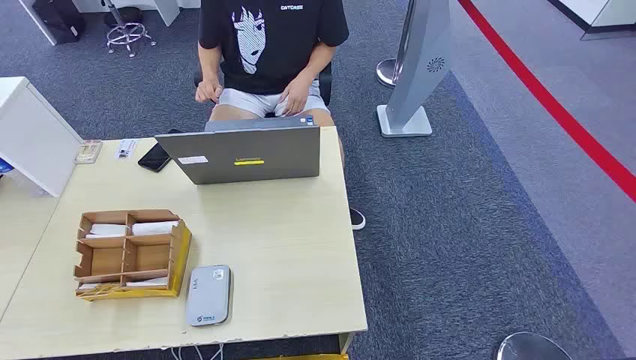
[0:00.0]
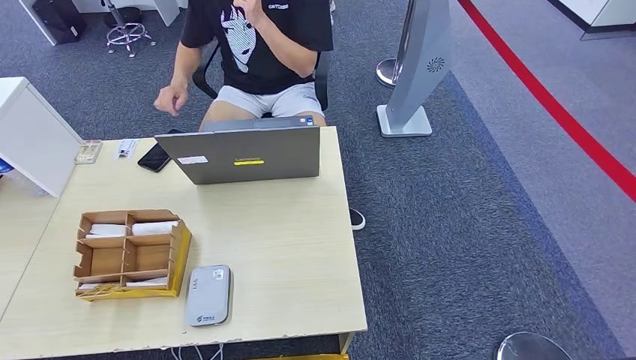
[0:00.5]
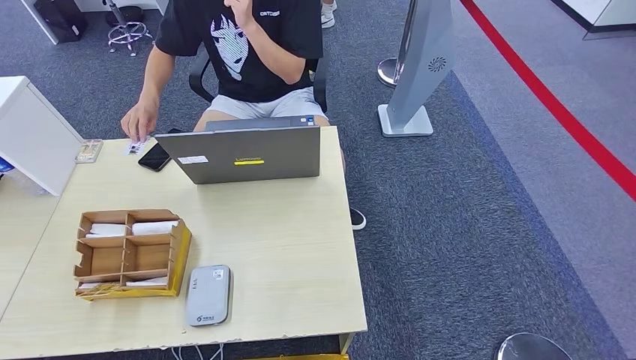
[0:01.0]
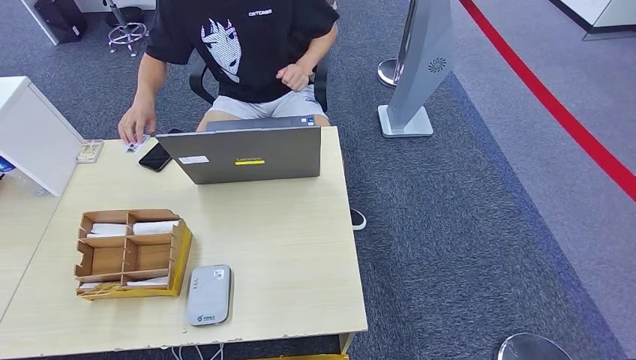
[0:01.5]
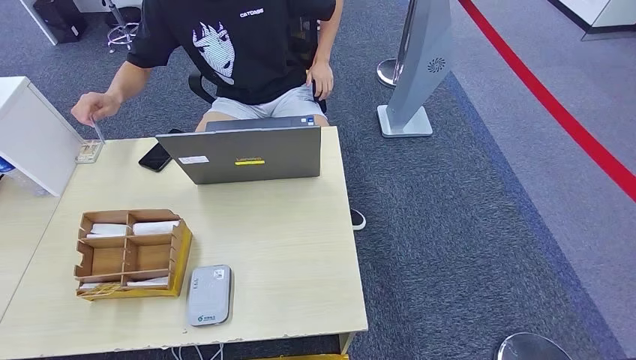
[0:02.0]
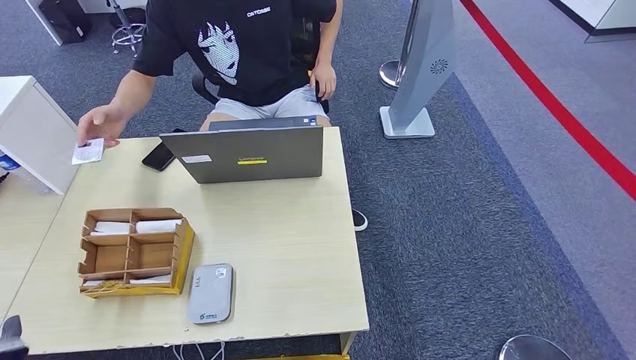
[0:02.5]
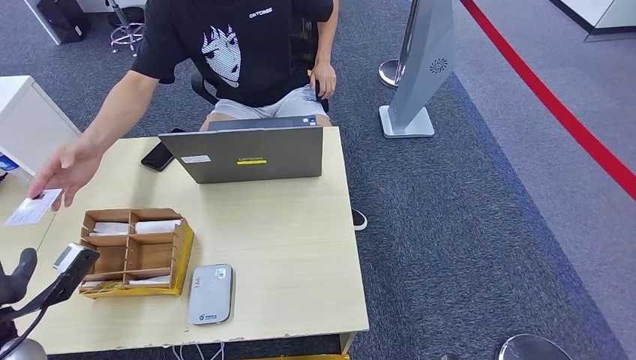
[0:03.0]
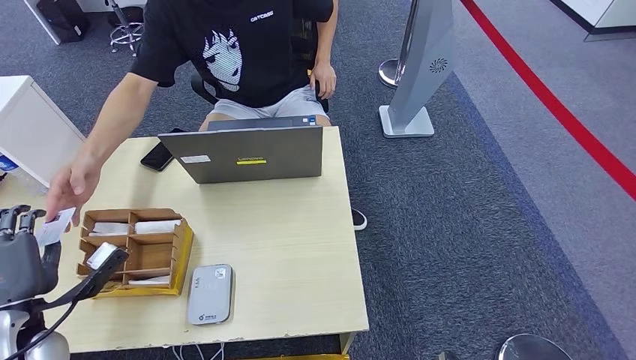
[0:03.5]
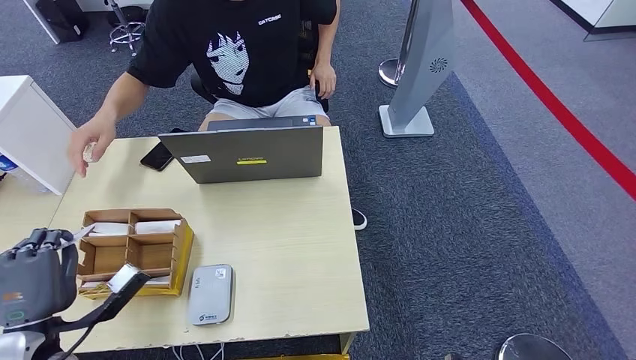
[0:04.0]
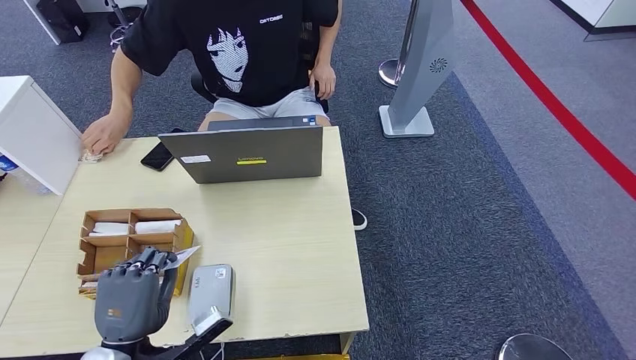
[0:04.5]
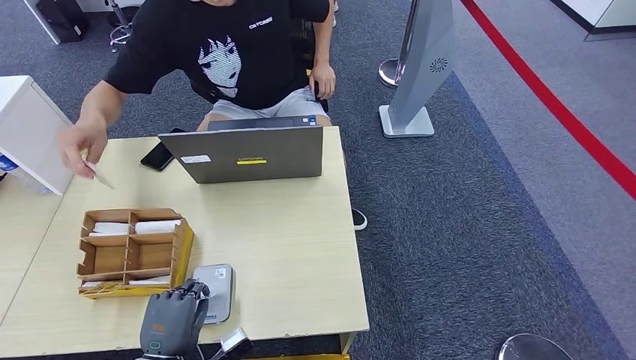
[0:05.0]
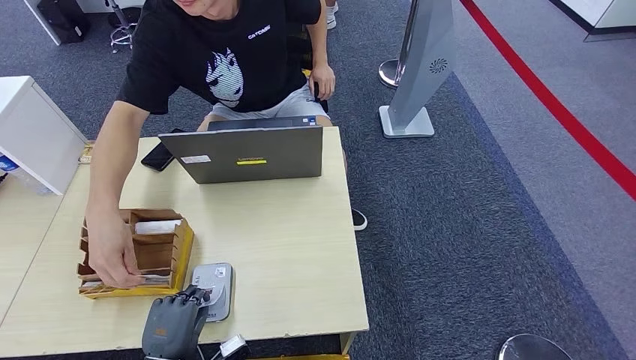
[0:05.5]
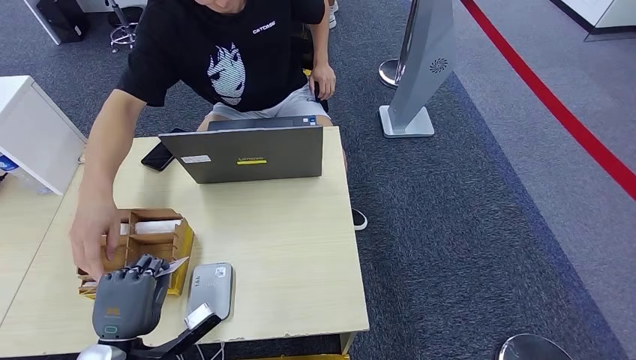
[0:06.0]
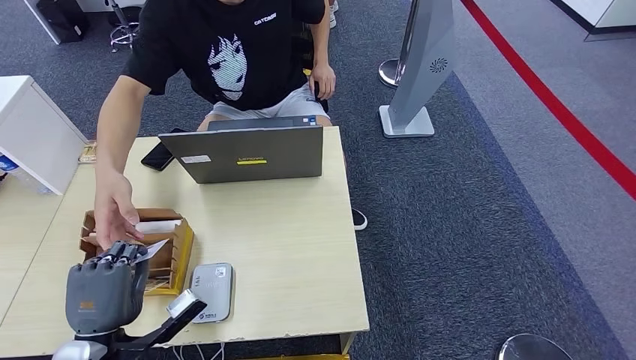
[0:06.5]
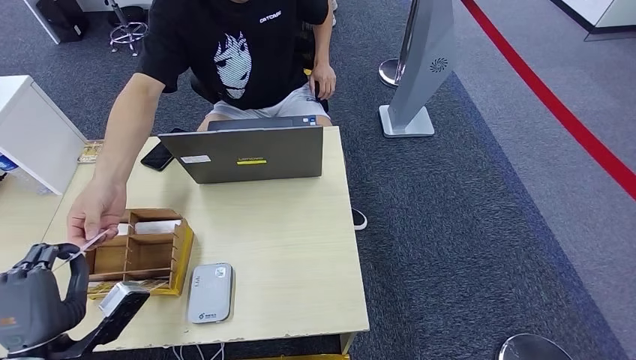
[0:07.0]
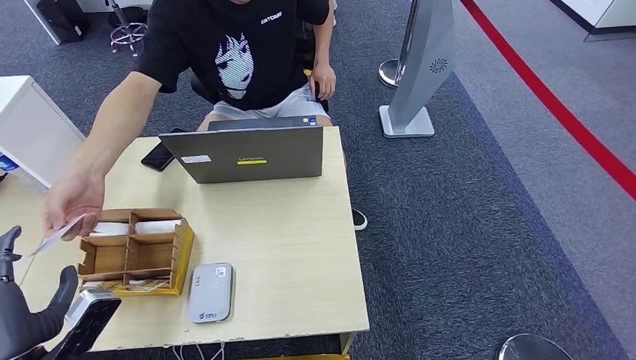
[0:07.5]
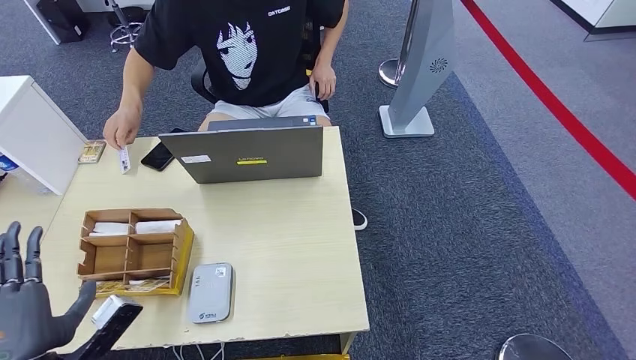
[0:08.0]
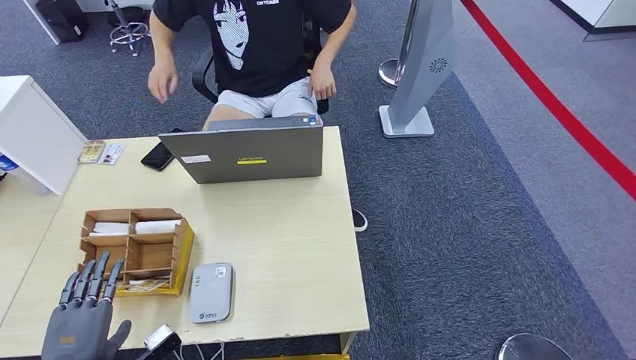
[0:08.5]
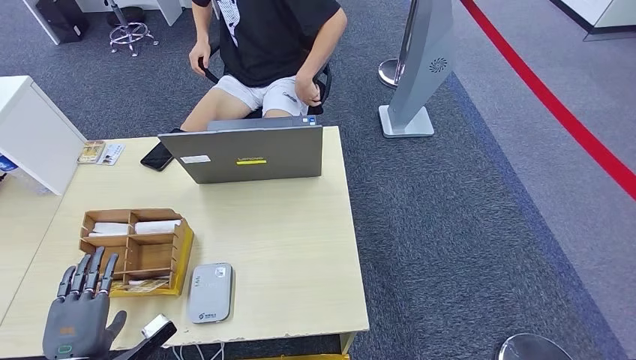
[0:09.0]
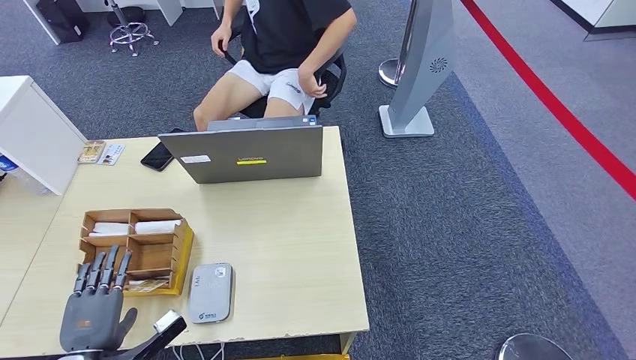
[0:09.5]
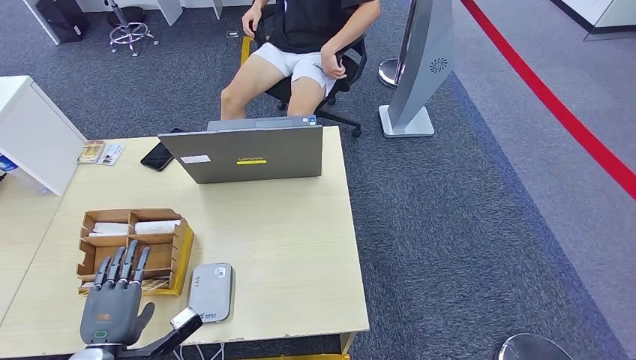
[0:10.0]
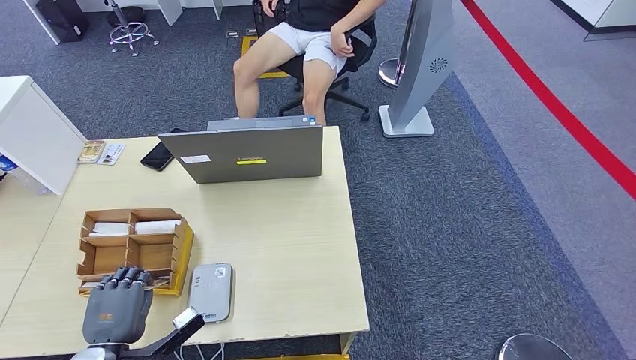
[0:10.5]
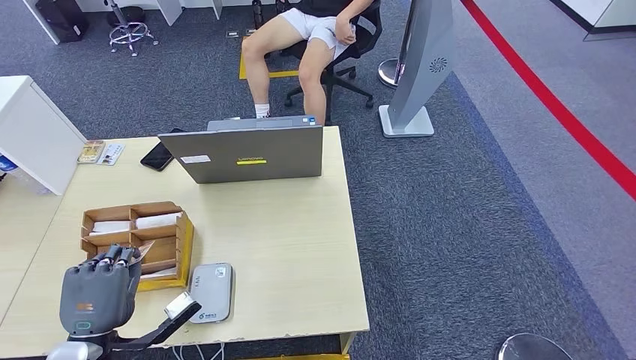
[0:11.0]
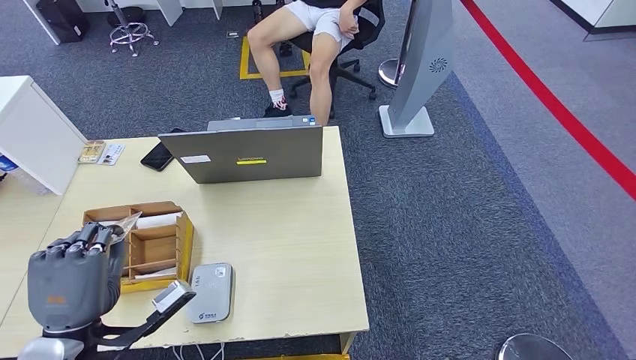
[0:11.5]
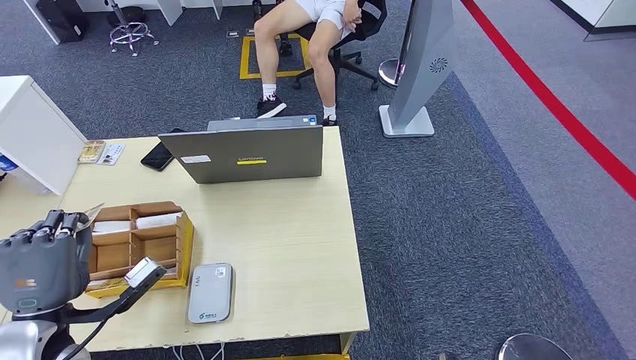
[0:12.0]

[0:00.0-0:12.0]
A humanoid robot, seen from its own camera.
Step, 0:00.0 to 0:04.0: Take the ID card from the person's hand.
Step, 0:04.5 to 0:06.5: Place the ID card on the card reader.
Step, 0:07.0 to 0:09.5: Hand the ID card to the person.
0:02.0 to 0:04.0: The left hand travels forward, to the right and upward by roughly 30 cm.
0:04.0 to 0:06.0: The left hand goes approximately 10 cm to the right and downward.
0:06.0 to 0:08.0: The left hand goes roughly 10 cm to the left and upward.
0:08.0 to 0:10.0: The left hand heads downward, covering roughly 10 cm.
0:10.0 to 0:12.0: The left hand shifts about 10 cm upward.

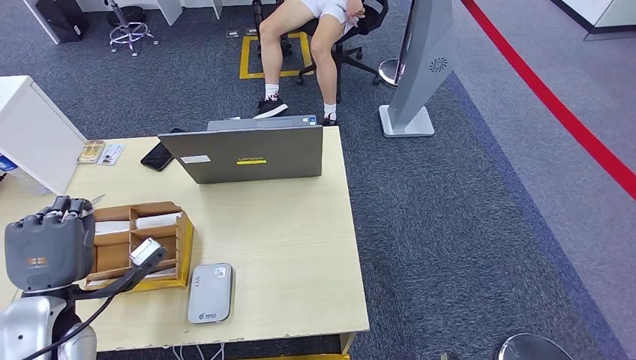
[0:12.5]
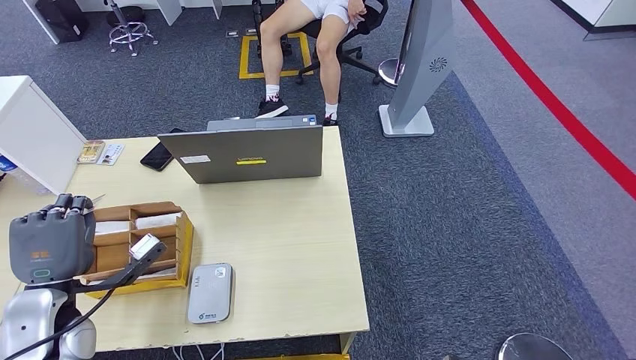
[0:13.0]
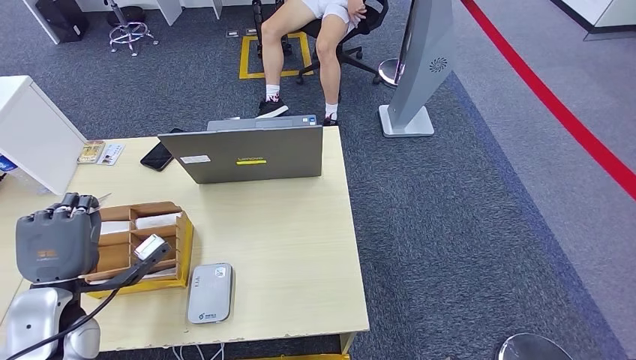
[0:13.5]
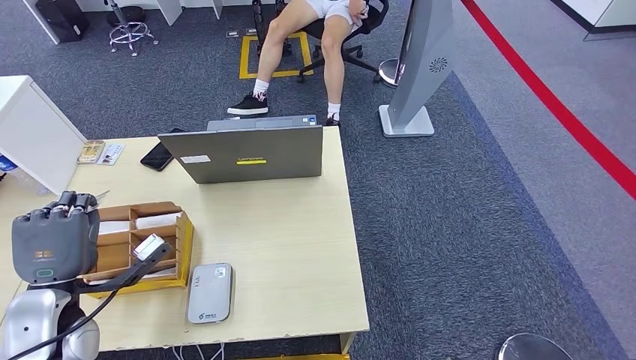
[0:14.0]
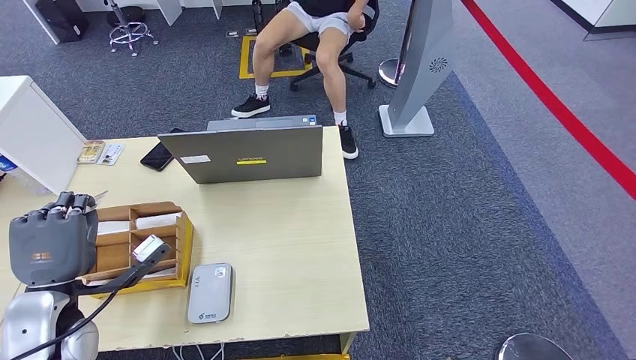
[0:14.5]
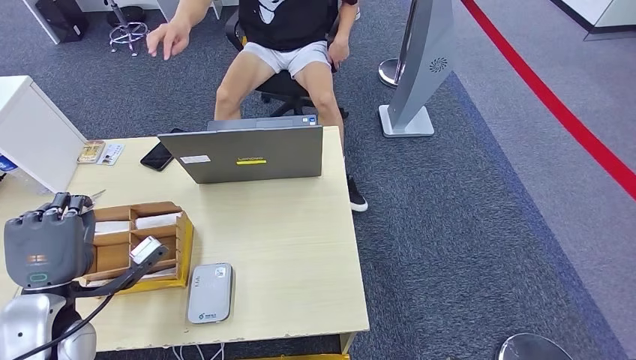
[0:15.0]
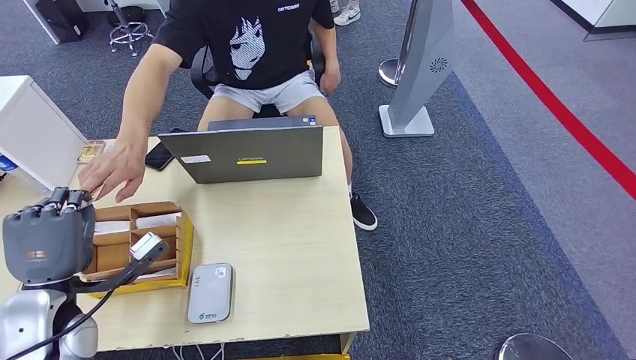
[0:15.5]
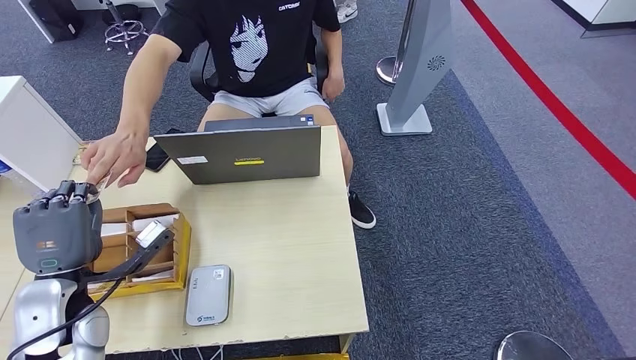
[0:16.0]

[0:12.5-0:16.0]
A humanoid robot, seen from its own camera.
Step, 0:12.5 to 0:16.0: Hand the room key to the person.
0:12.5 to 0:14.5: The hands move only a little.

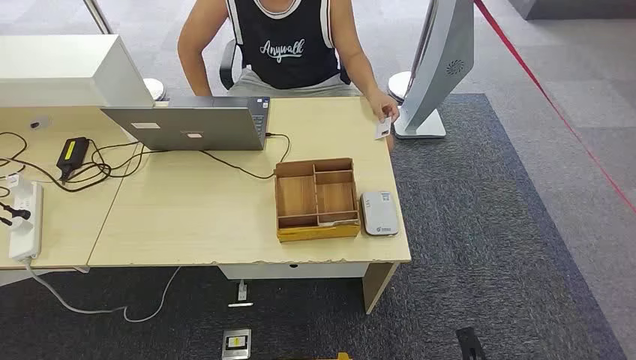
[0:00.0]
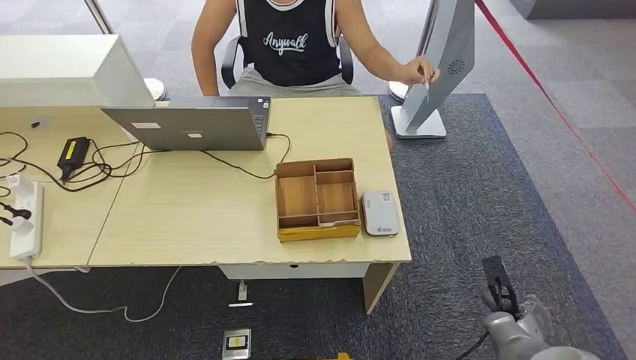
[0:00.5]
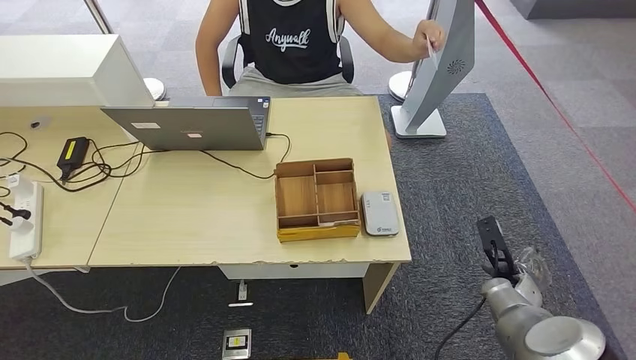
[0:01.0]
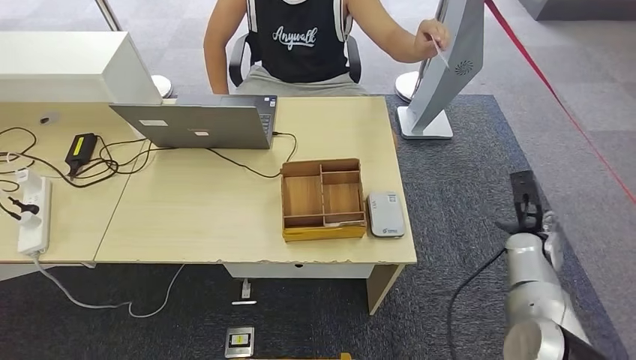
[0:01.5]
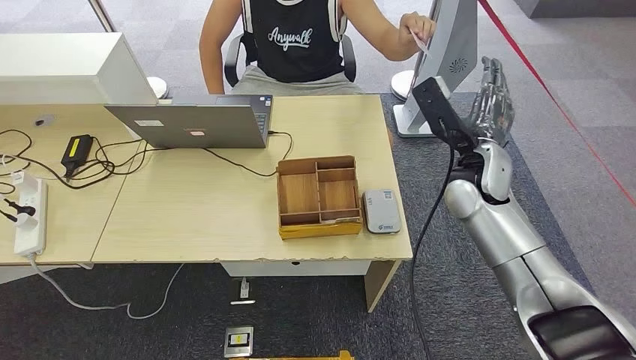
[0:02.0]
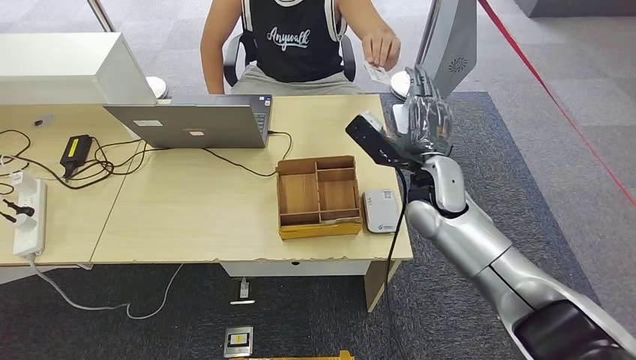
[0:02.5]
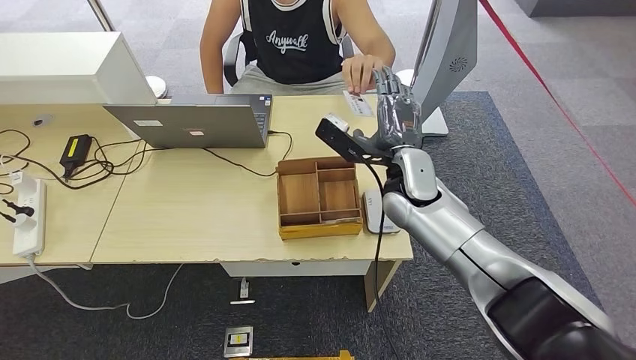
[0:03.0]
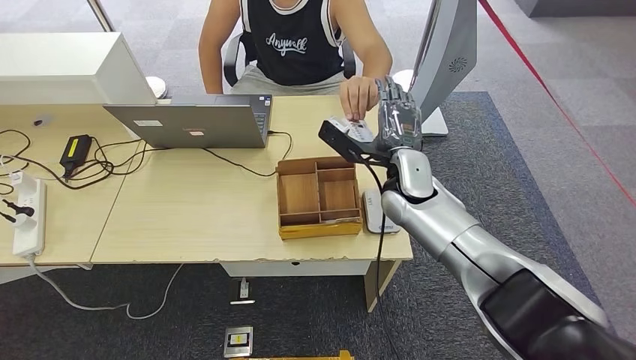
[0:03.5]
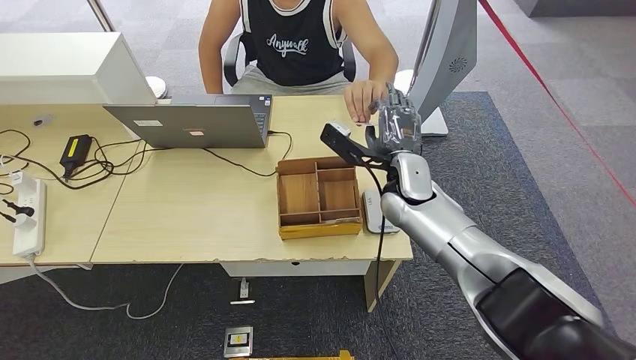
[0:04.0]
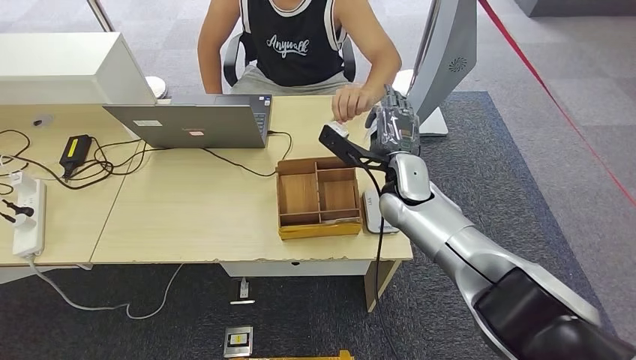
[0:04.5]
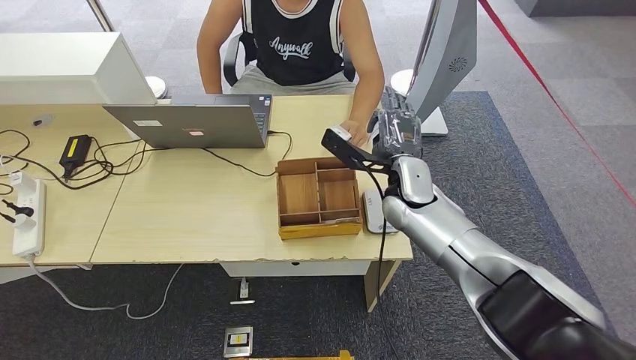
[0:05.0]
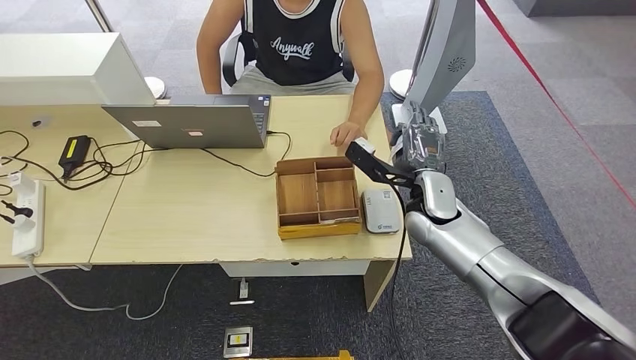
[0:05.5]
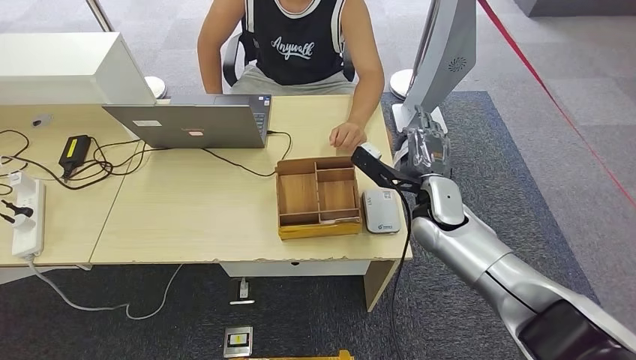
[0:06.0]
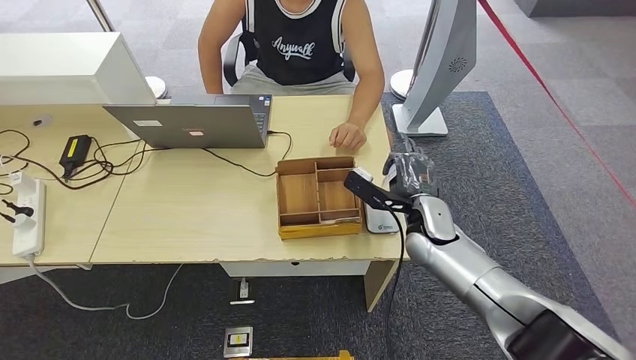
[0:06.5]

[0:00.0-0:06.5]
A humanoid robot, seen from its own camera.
Step, 0:00.0 to 0:04.5: Take the ID card from the person's hand.
0:02.0 to 0:04.5: The right hand travels to the left and downward by roughly 10 cm.
0:04.5 to 0:06.5: The right hand shifts roughly 10 cm downward and to the right.
